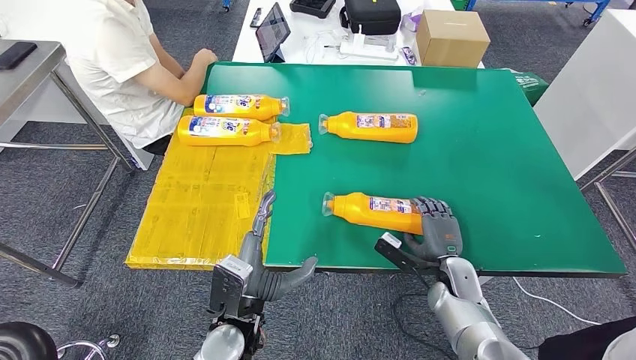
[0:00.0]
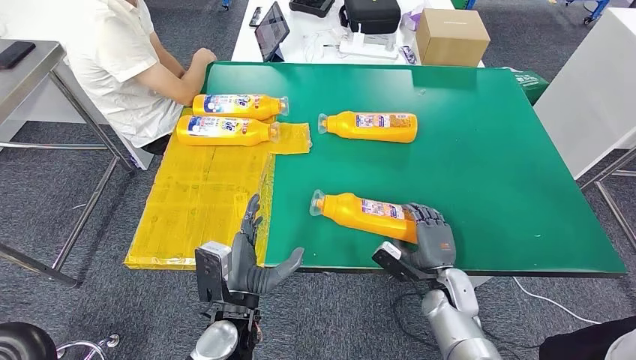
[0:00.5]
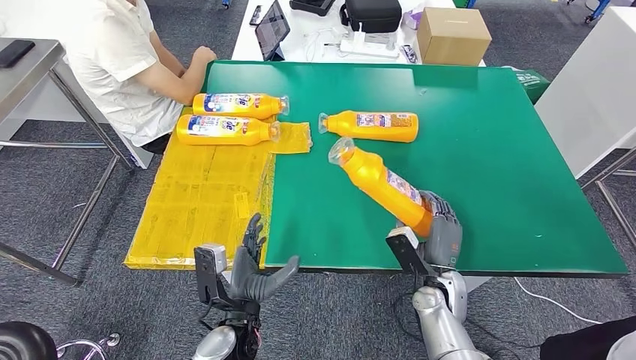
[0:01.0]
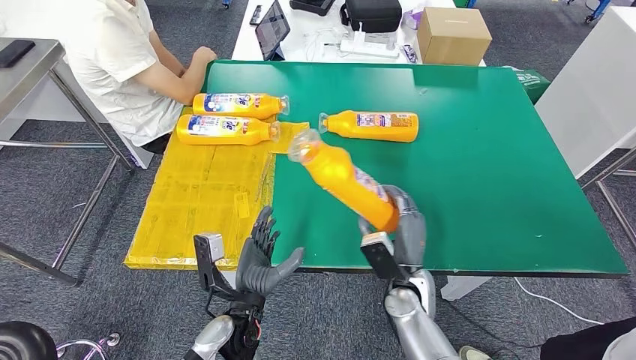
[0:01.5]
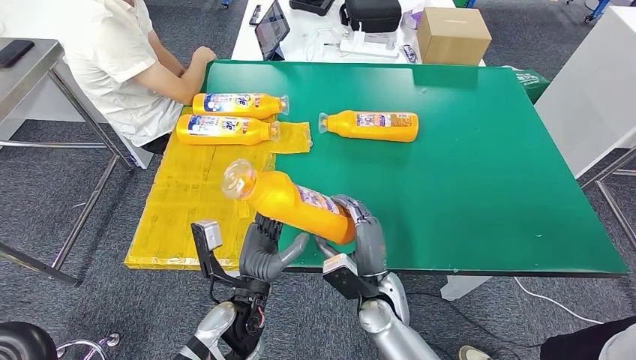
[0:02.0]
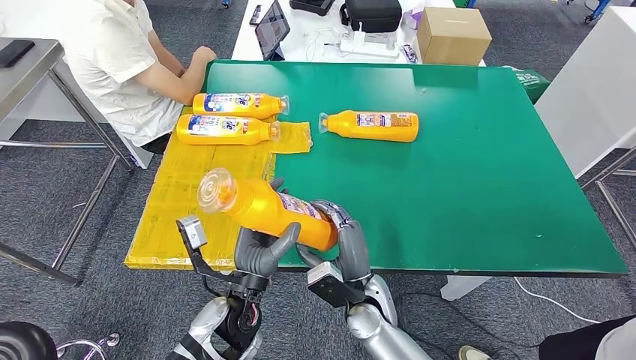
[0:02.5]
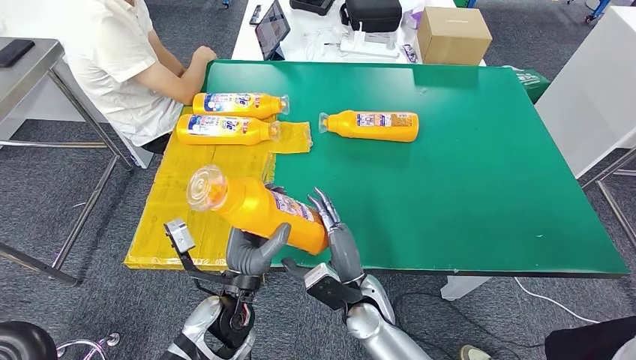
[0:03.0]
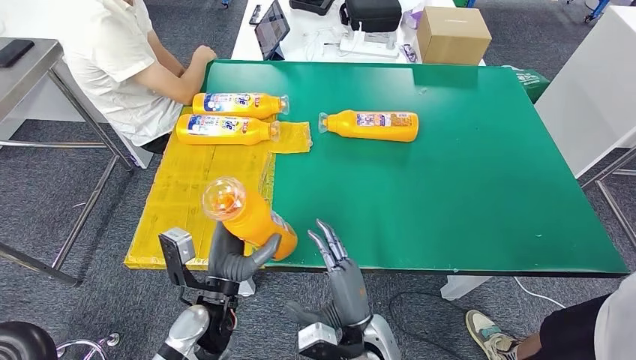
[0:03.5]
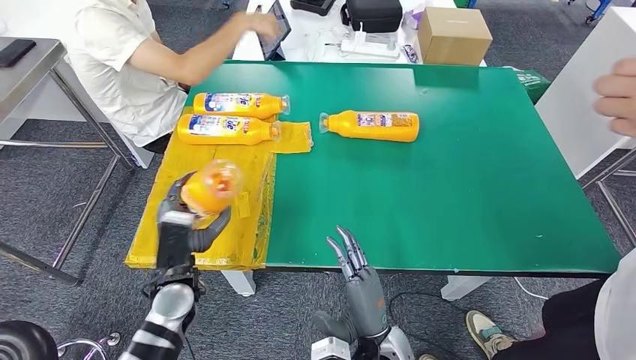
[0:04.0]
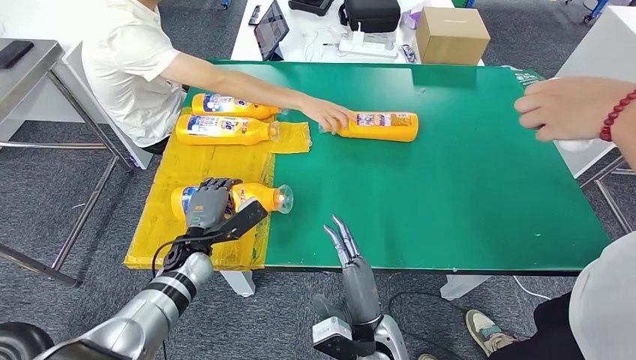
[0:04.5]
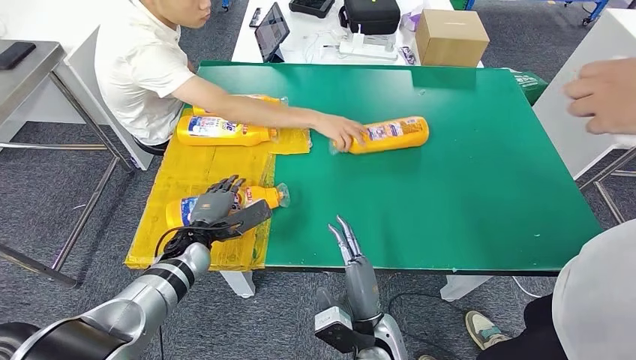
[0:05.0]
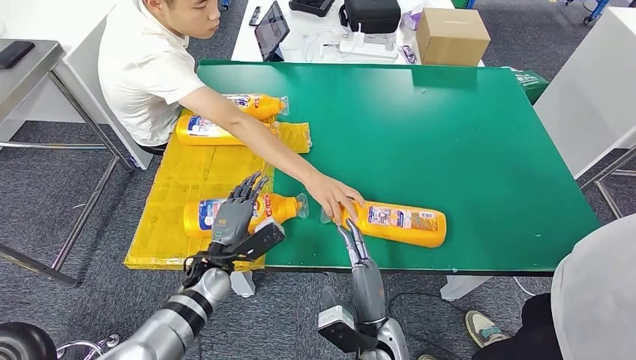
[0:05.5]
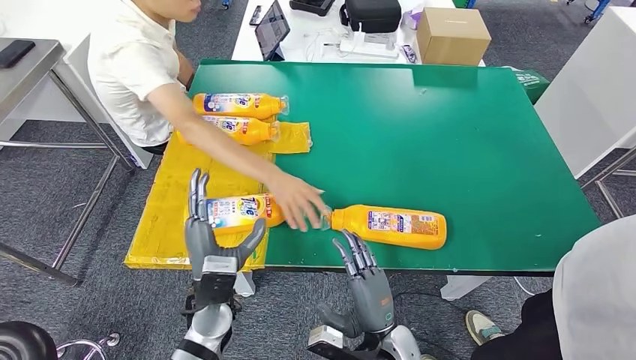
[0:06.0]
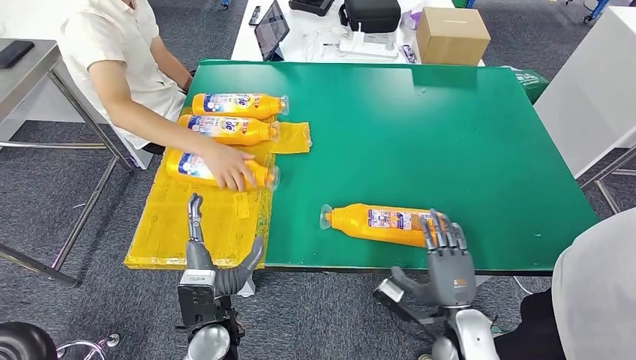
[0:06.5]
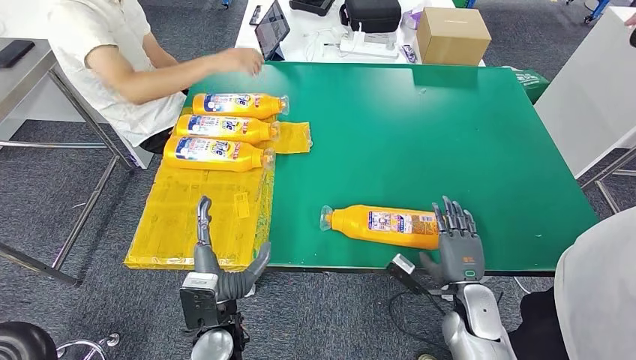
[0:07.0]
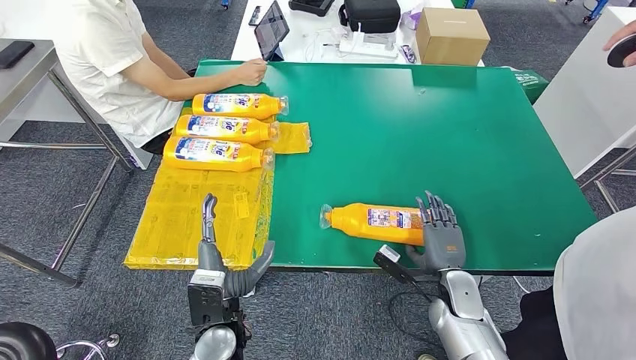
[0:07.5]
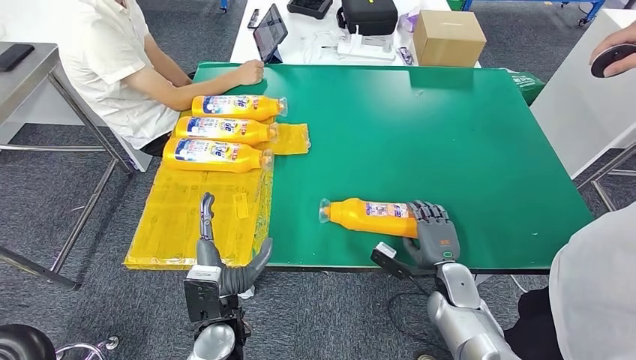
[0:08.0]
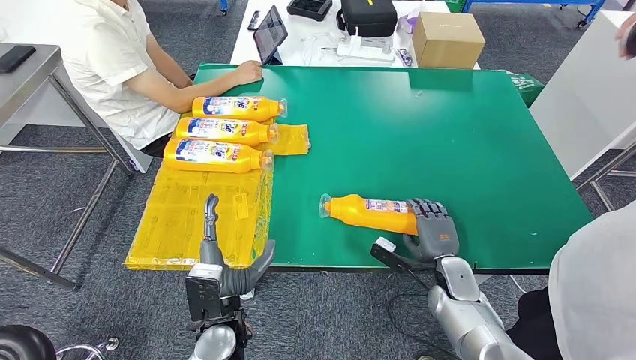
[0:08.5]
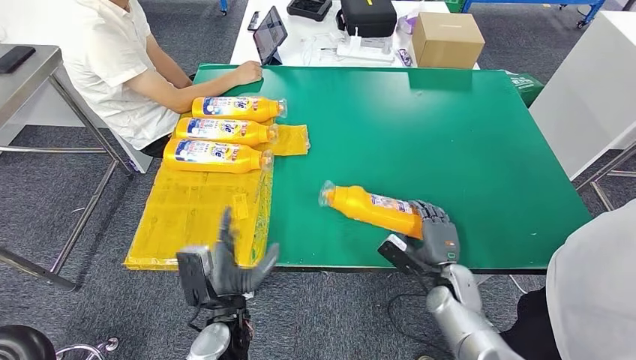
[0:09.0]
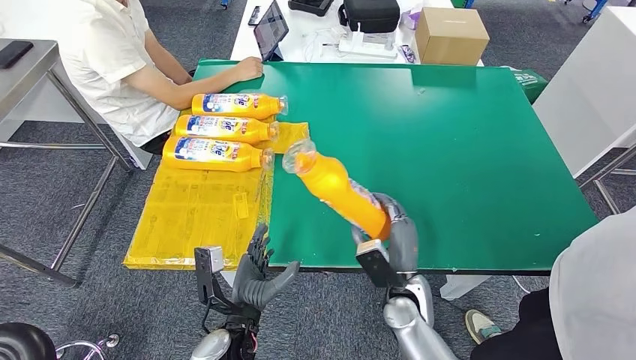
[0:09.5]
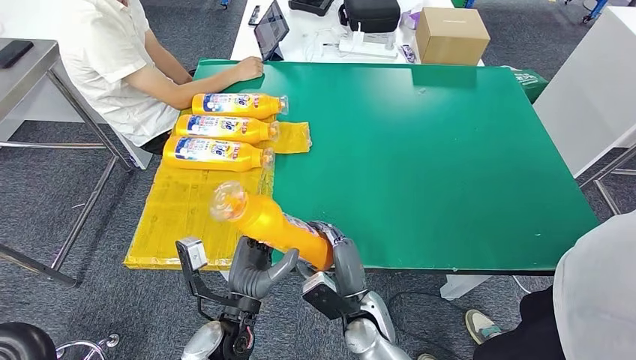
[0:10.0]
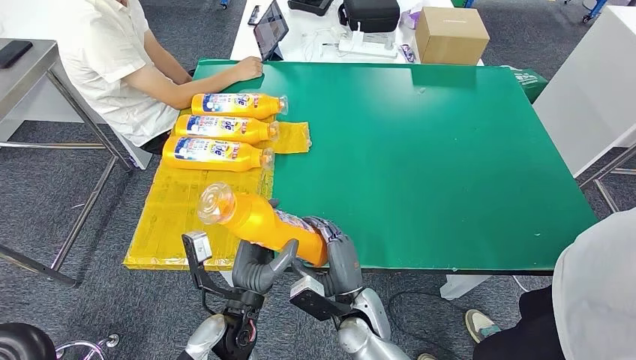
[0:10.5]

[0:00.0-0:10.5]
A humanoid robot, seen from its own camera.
Step, 0:01.5 to 0:06.0: Flip the fast-moving consumer goods bottle to the front side.
Step, 0:06.5 to 0:10.0: Pick up the fast-moving consumer goods bottle from the table.
0:00.0 to 0:02.0: The right hand heads to the left, covering some 20 cm.

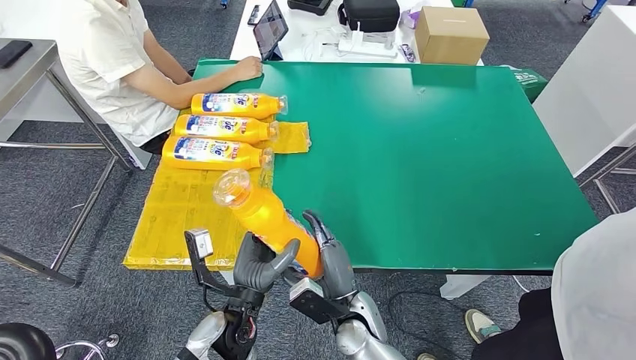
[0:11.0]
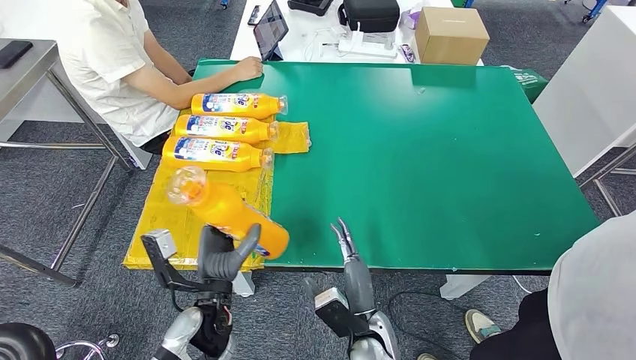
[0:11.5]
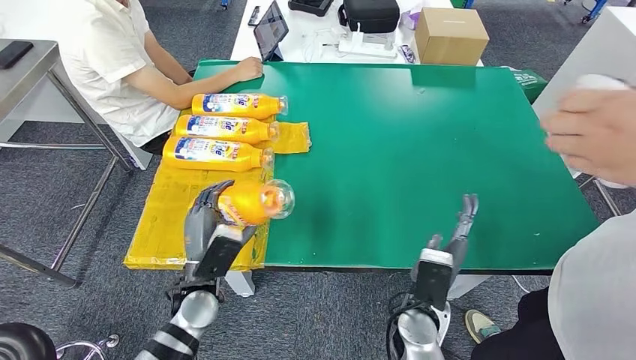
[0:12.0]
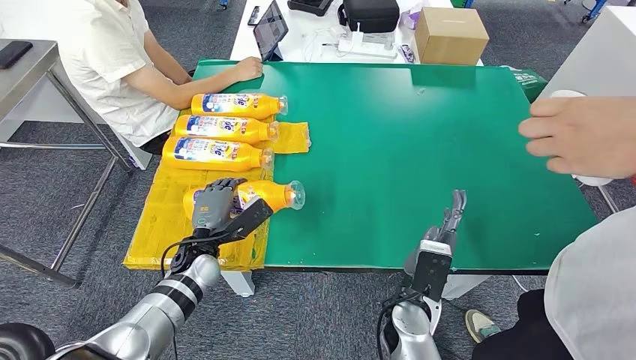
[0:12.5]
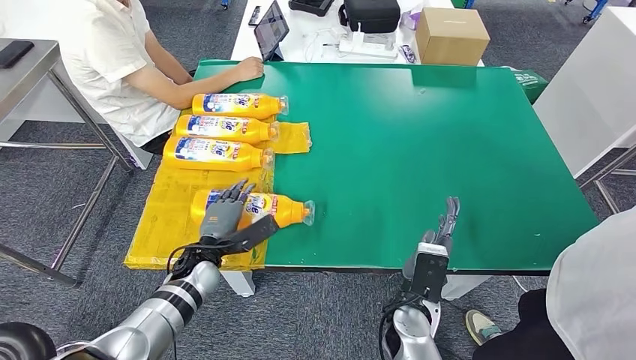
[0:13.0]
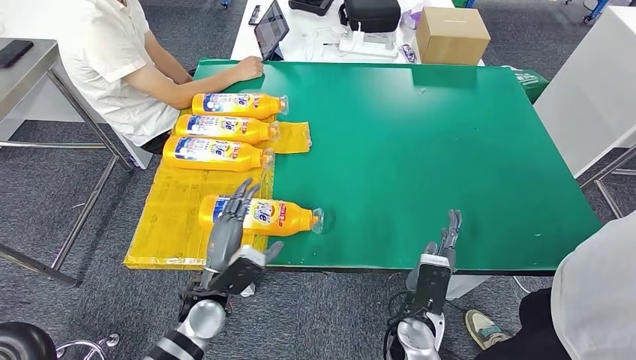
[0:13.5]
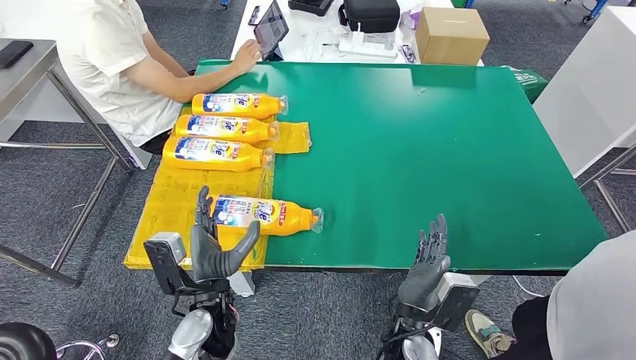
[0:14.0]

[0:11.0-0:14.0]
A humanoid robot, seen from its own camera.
Step, 0:11.0 to 0:14.0: Flip the fast-moving consumer goods bottle to the front side.
0:11.0 to 0:12.5: The left hand travels forward and to the left by approximately 15 cm, while the right hand travels to the right and upward by about 10 cm.
0:12.5 to 0:14.0: The left hand goes some 15 cm backward and to the right.
